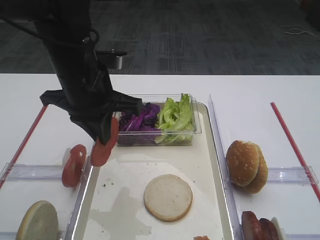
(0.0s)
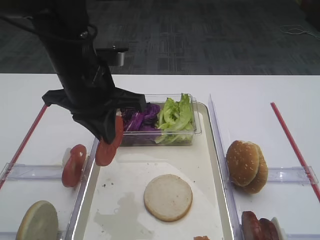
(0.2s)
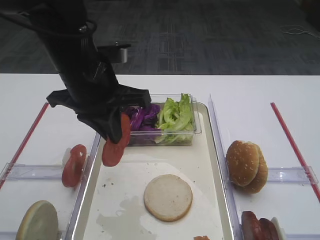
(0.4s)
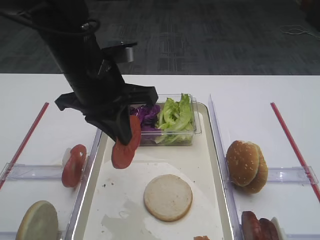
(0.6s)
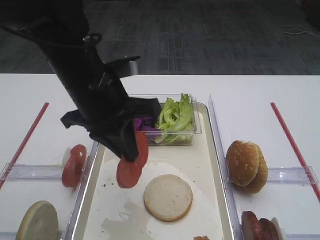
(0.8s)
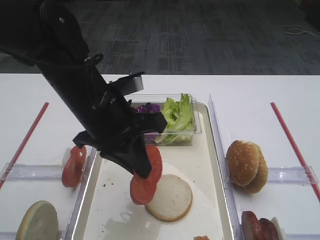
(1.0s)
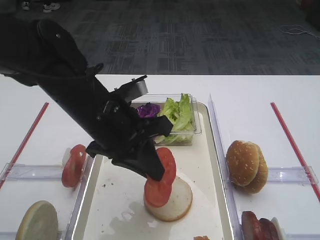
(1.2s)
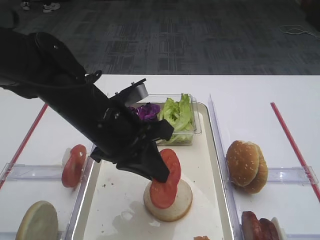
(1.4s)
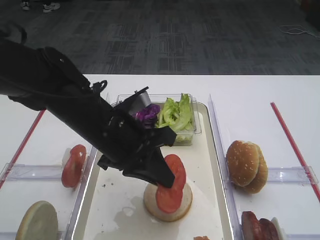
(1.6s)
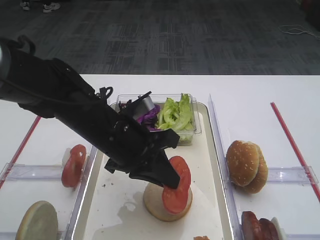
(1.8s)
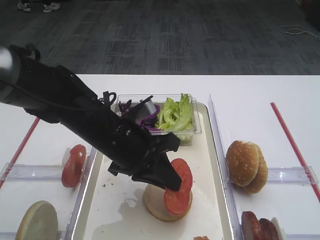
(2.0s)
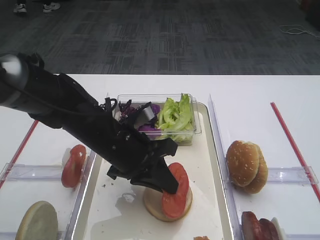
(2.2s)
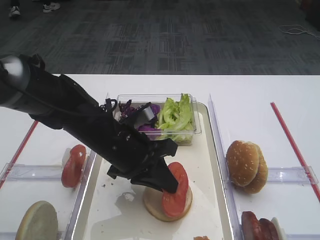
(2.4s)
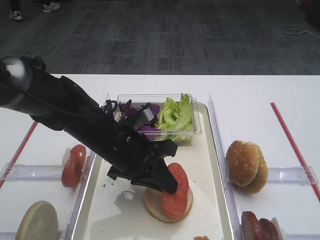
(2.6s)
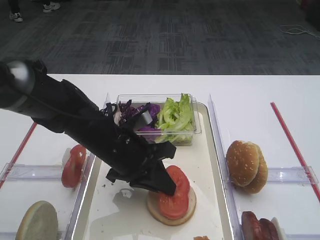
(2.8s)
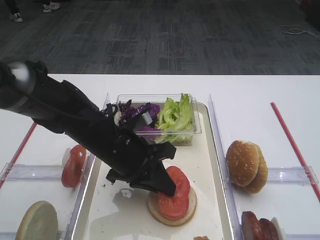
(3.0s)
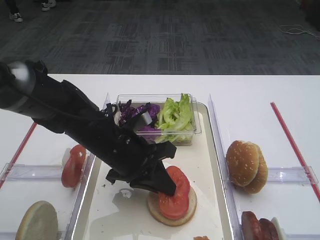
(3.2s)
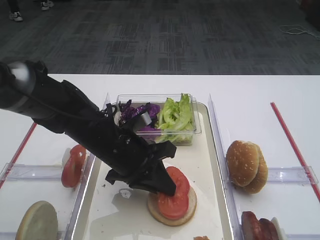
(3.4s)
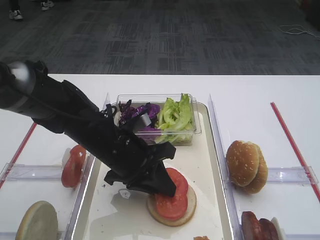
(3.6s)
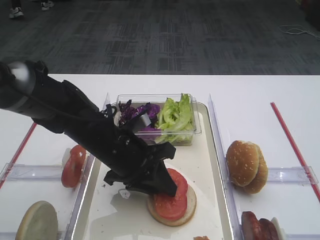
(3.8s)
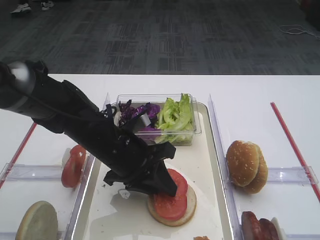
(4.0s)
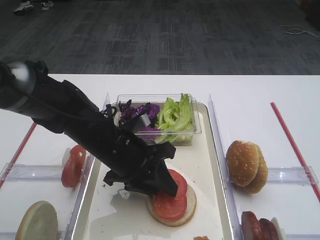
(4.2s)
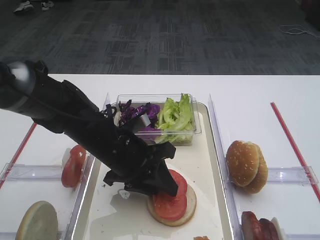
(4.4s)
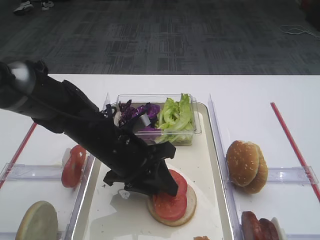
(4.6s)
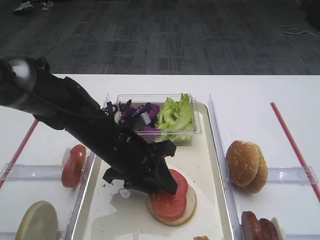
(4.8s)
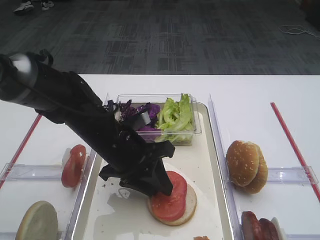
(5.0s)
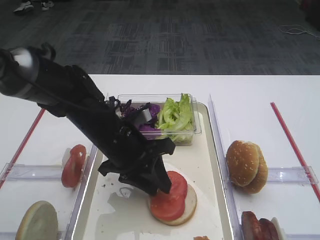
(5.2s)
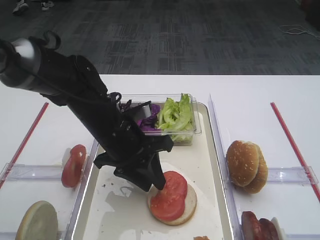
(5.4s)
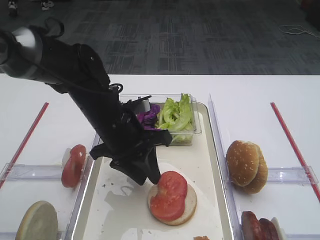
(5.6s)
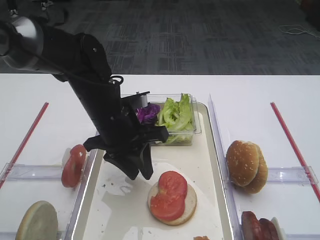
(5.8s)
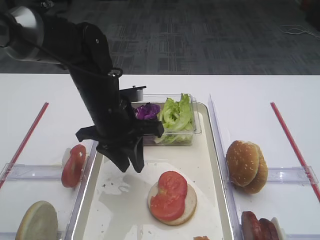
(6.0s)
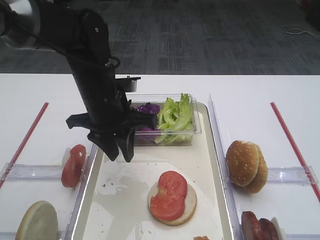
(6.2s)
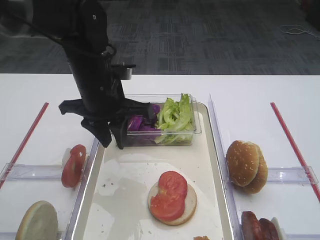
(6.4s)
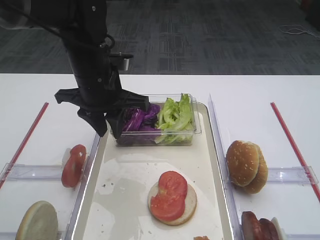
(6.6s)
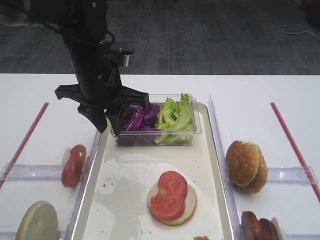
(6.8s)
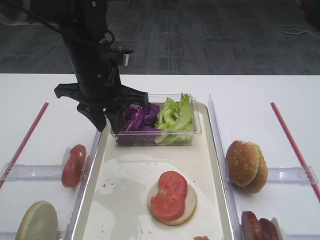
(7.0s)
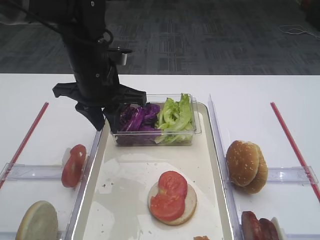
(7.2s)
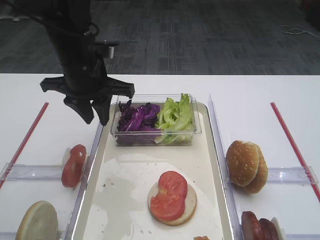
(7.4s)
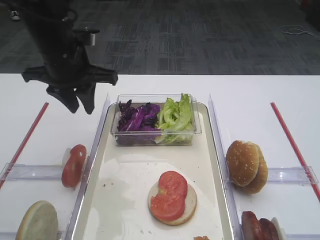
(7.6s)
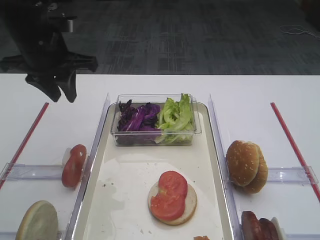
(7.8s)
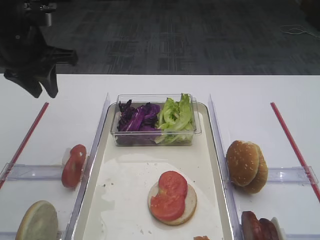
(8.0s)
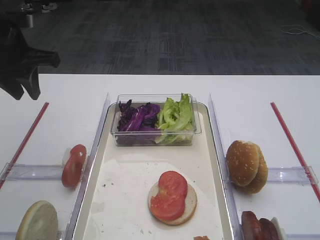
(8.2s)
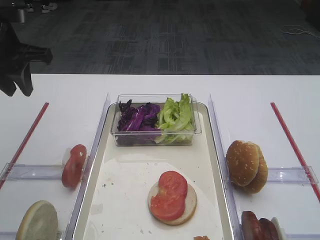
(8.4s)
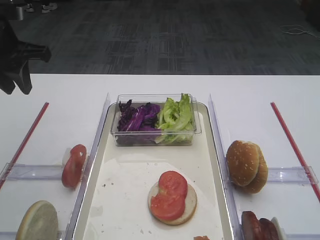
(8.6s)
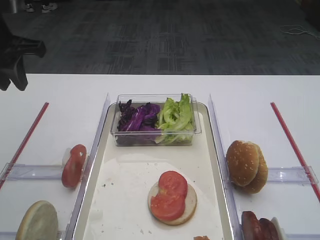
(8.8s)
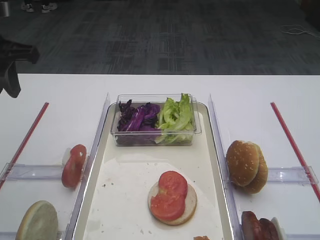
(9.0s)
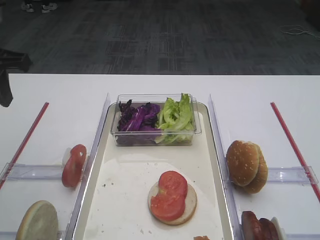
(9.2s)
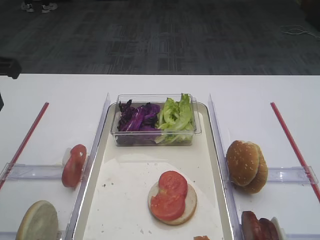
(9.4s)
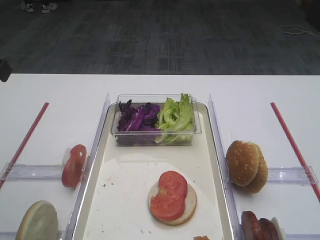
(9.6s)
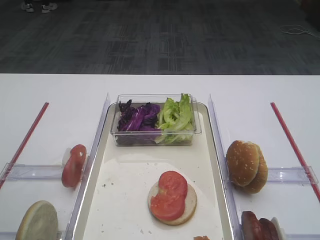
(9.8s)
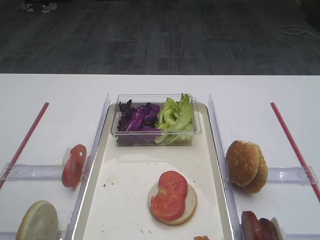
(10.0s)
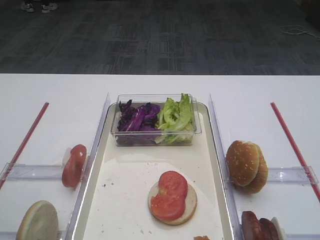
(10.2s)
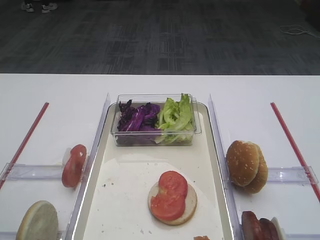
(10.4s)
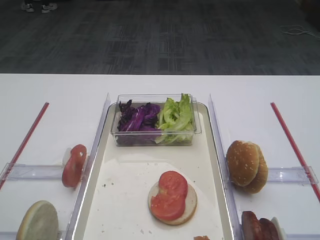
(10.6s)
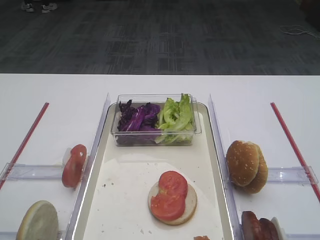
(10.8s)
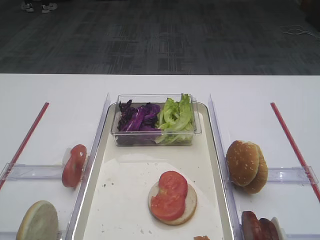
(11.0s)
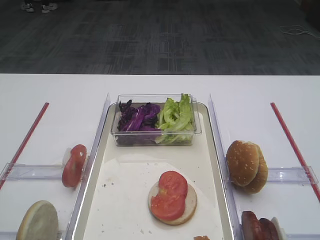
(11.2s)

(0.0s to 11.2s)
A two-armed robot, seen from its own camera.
Step, 0.0s - 5.8s: Place the tomato slice on the bread slice with the left gripper.
0.0s - 1.6s: The left gripper travels downward by about 5 cm.
1.6s - 3.2s: The left gripper shifts some 5 cm downward.
3.2s - 4.8s: The left gripper opens up.
4.8s - 6.4s: The left gripper travels upward and forward by about 10 cm.
6.4s - 8.0s: The left gripper goes roughly 15 cm to the left and upward.
8.0s - 9.6s: The left gripper goes some 10 cm backward.

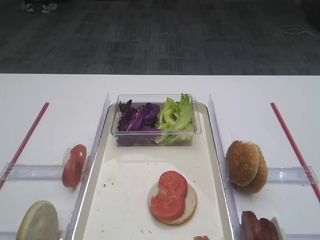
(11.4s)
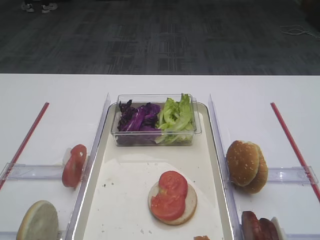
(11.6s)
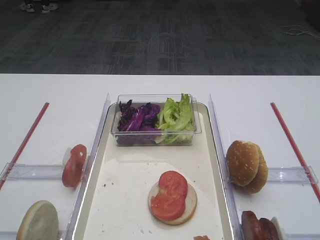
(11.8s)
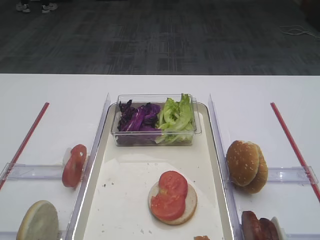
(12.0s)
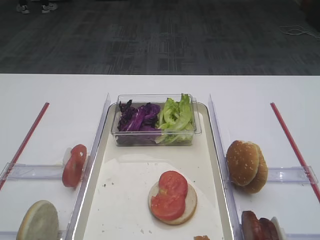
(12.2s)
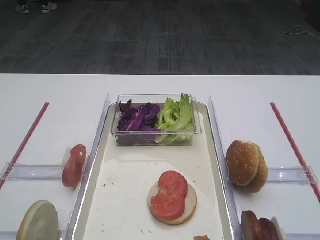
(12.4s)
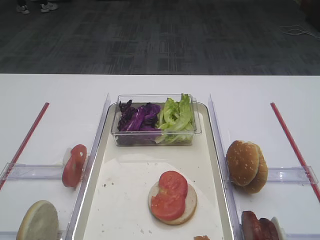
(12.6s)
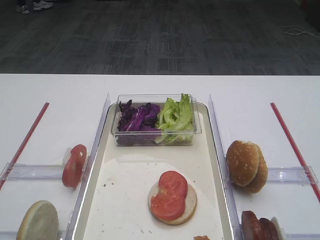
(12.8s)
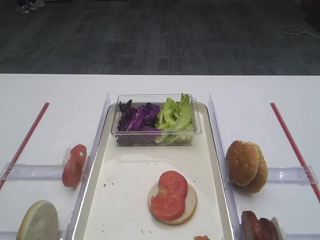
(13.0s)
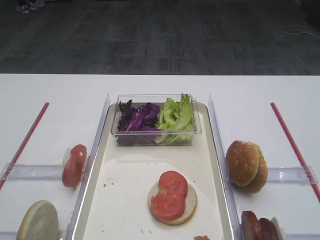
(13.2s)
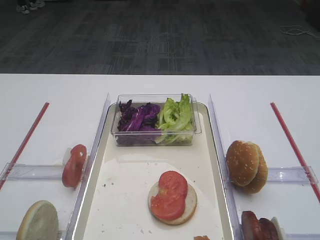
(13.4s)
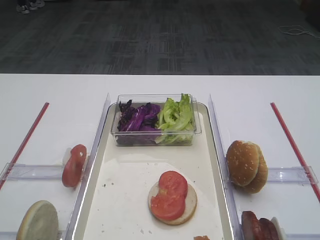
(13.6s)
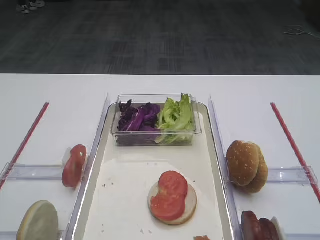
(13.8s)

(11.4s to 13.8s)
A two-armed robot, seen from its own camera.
12.6s - 13.8s: The two grippers keep their place.

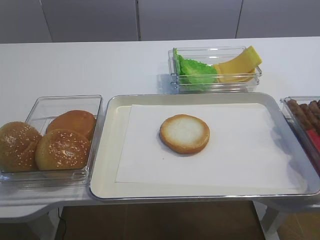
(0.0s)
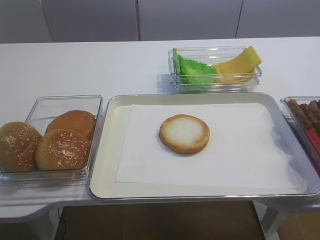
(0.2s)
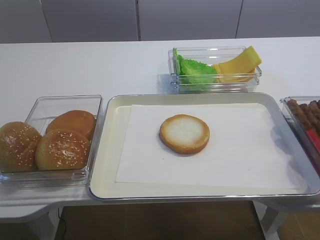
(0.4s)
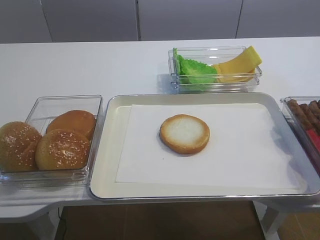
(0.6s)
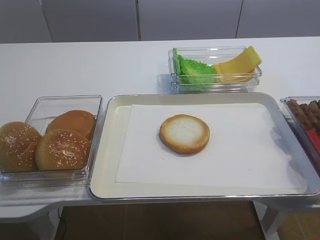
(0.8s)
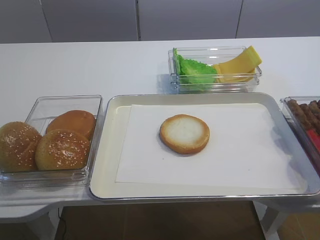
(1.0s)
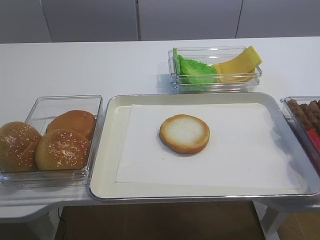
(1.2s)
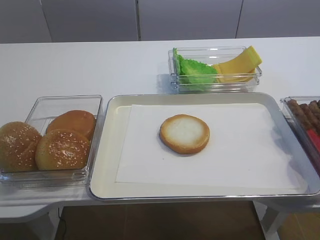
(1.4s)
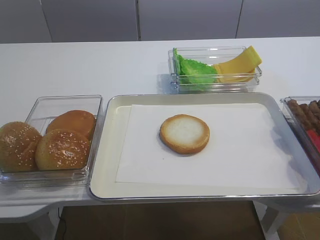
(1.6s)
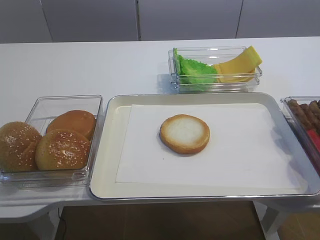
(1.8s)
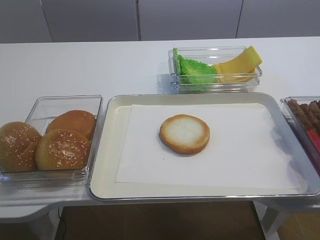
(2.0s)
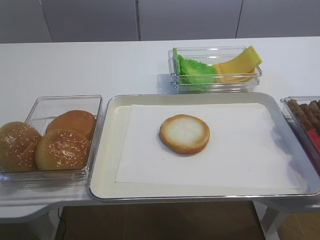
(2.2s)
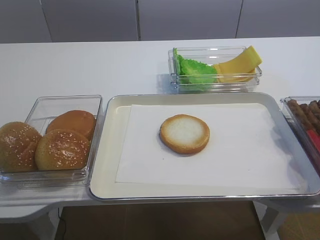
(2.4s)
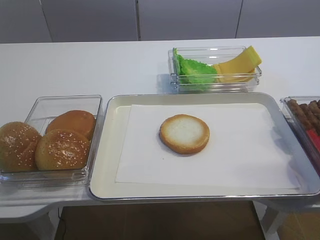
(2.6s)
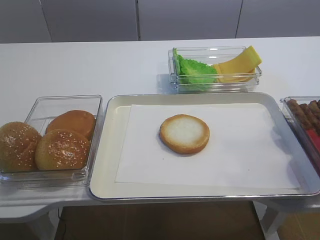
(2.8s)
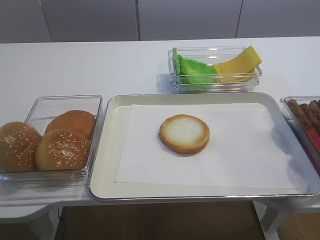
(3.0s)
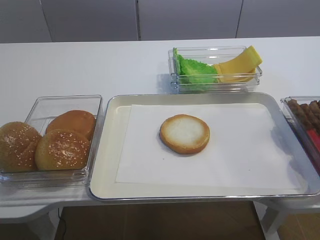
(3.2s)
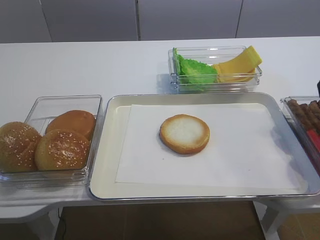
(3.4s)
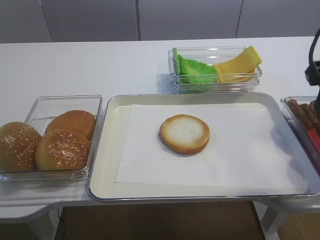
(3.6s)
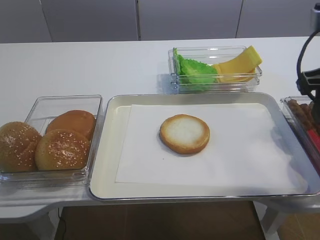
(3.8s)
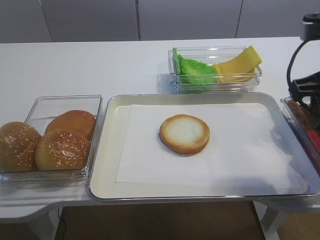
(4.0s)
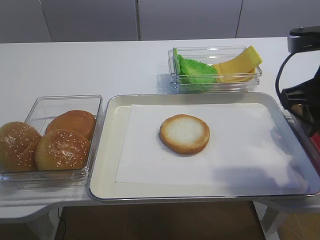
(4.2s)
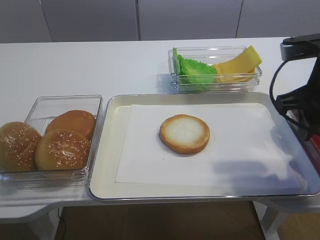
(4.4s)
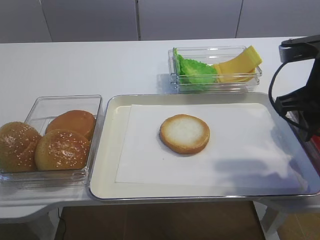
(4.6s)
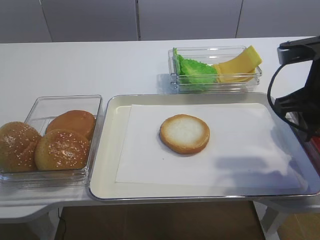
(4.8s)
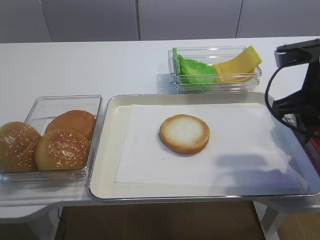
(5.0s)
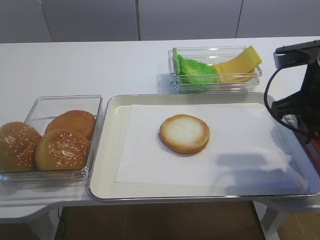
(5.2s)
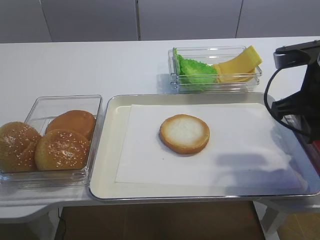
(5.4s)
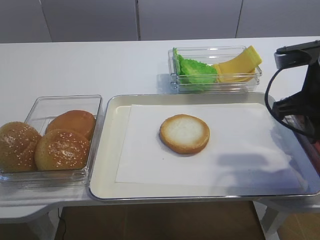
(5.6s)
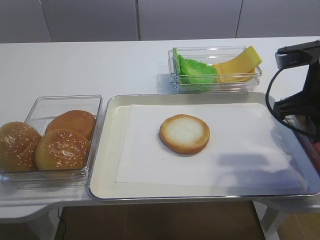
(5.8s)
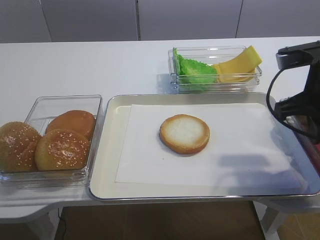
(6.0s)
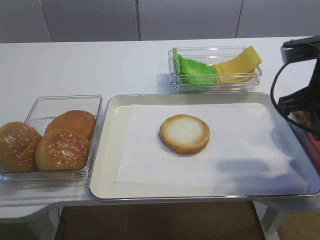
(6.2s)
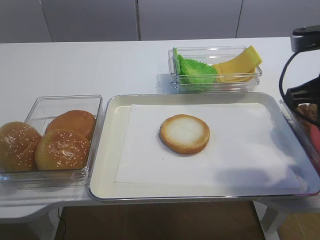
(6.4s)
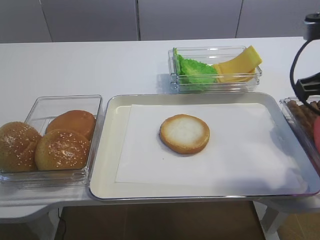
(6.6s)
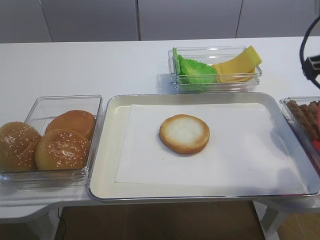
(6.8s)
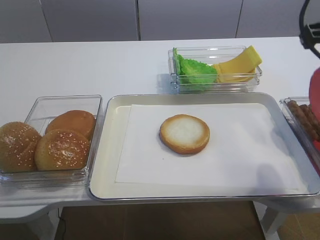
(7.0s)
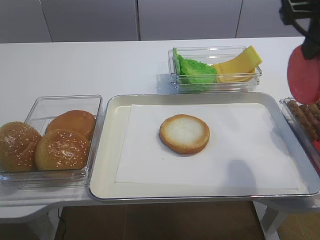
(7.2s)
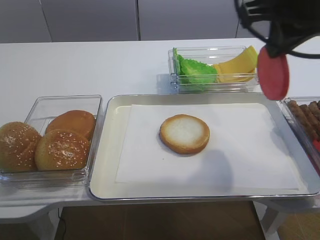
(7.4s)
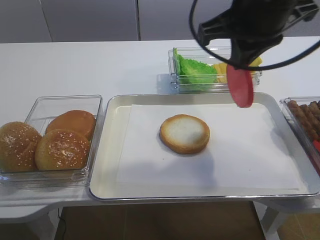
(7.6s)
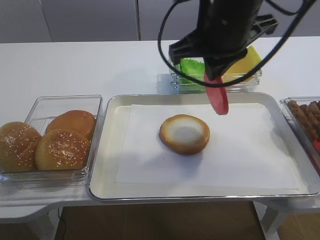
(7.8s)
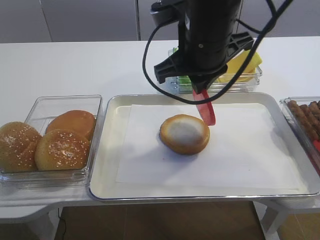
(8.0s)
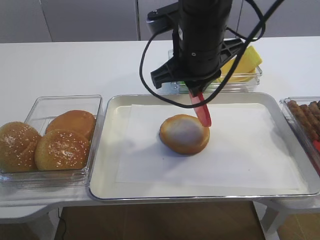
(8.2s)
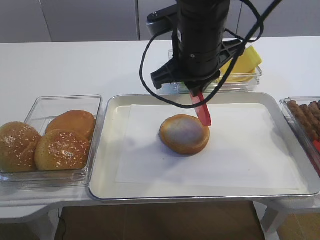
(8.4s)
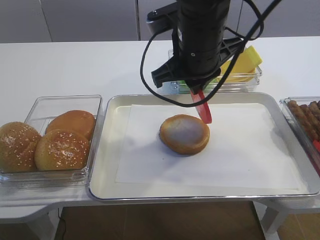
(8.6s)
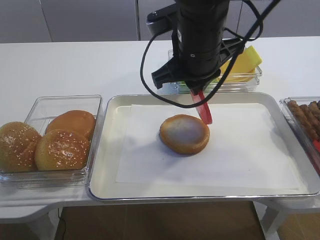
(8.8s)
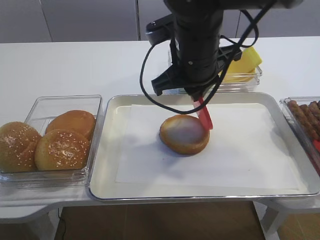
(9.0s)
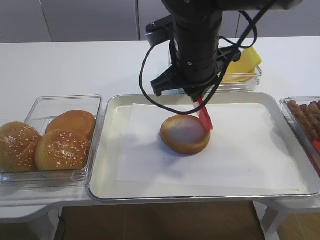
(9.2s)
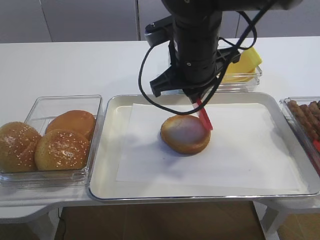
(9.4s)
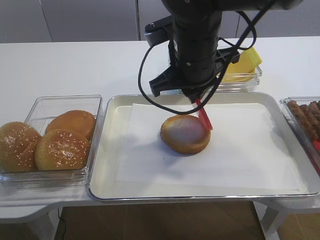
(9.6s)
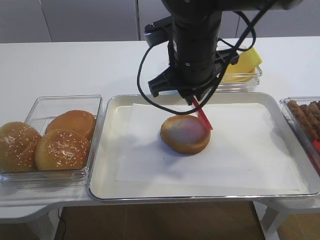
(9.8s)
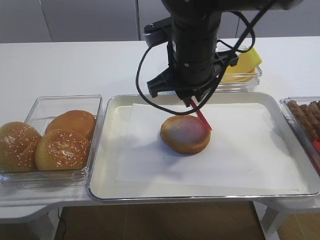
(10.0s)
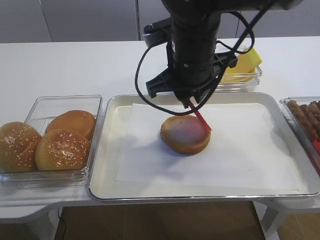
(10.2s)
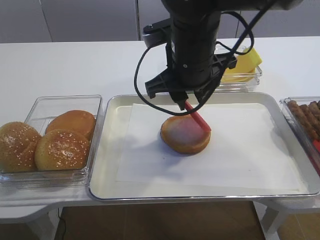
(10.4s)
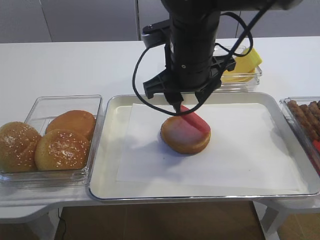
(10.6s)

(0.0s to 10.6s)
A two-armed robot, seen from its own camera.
Step, 0.0s - 6.4s: Pick up the tomato slice with the right gripper.
3.0s - 4.6s: The right gripper is displaced forward and downward by approximately 15 cm.
4.6s - 6.0s: The right gripper closes its fingers.
6.0s - 7.6s: The right gripper goes some 15 cm upward and to the left.
7.6s - 9.0s: The right gripper goes roughly 10 cm downward and to the left.
9.0s - 10.6s: The right gripper opens.
